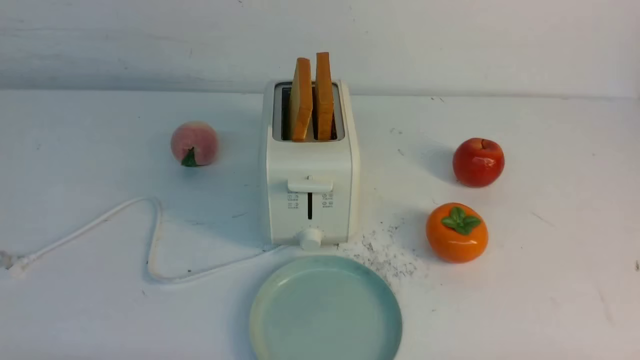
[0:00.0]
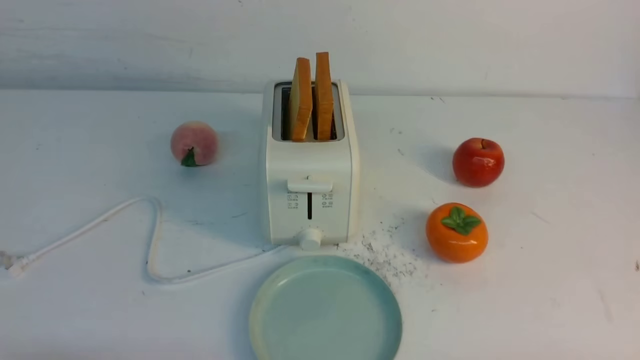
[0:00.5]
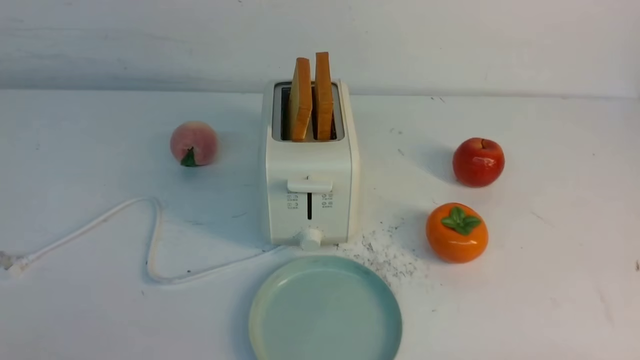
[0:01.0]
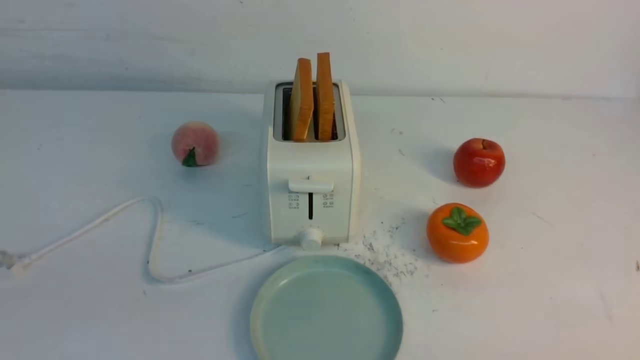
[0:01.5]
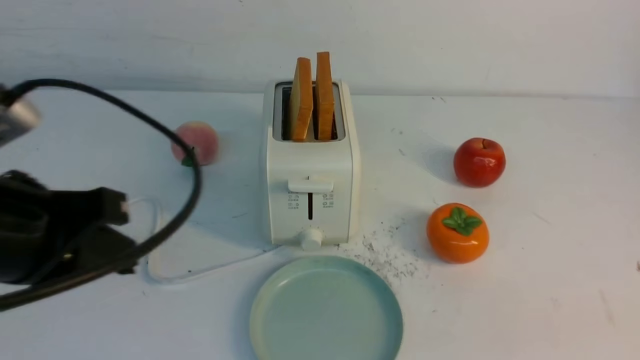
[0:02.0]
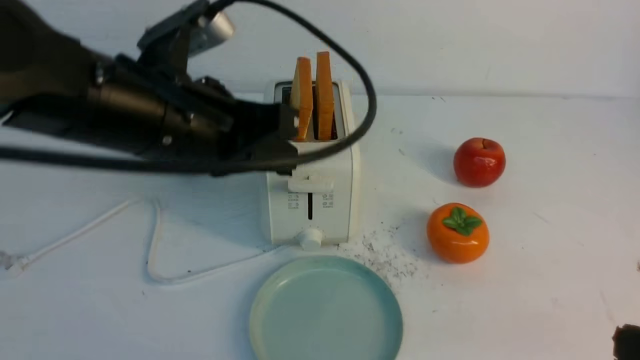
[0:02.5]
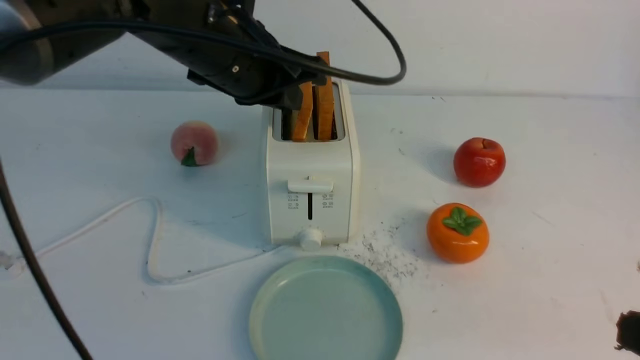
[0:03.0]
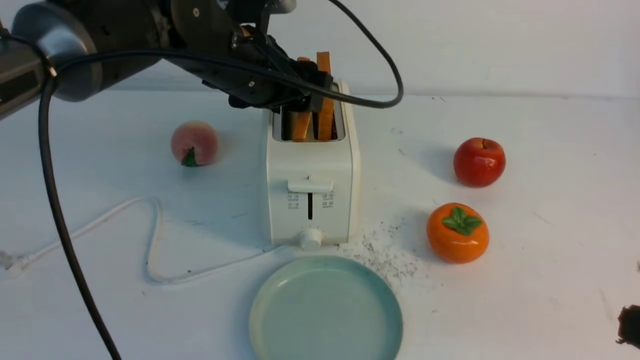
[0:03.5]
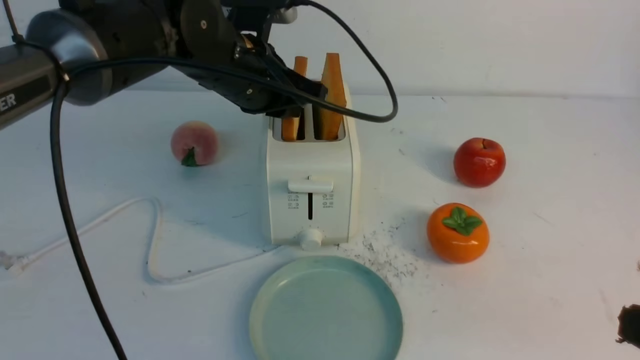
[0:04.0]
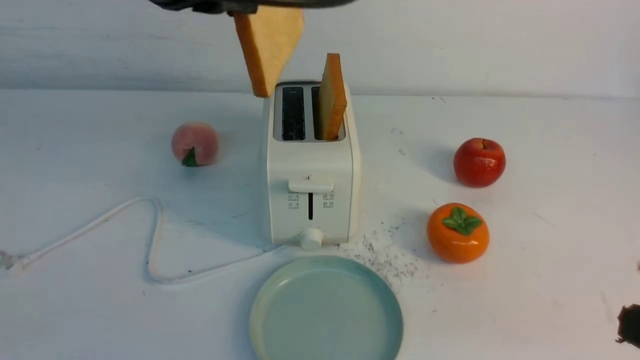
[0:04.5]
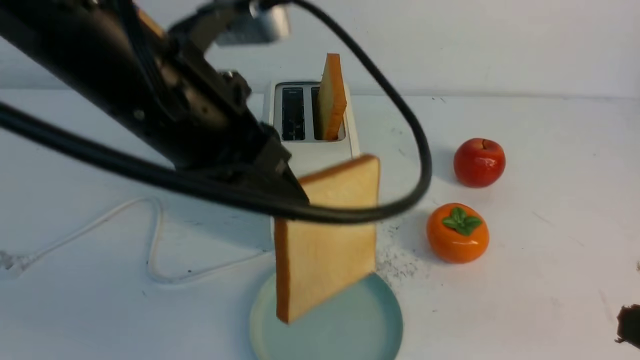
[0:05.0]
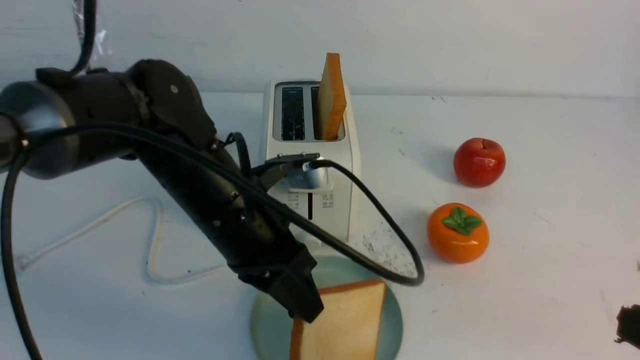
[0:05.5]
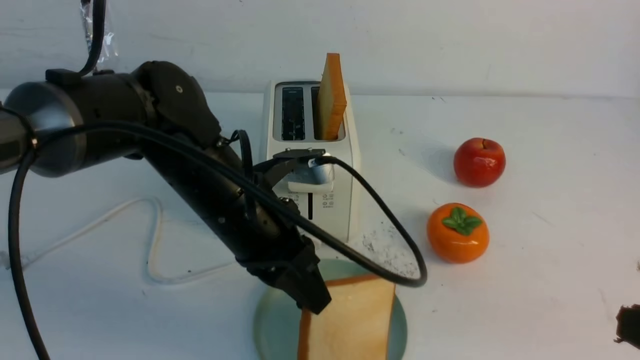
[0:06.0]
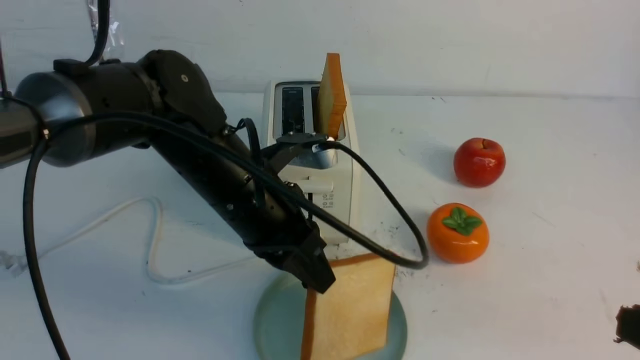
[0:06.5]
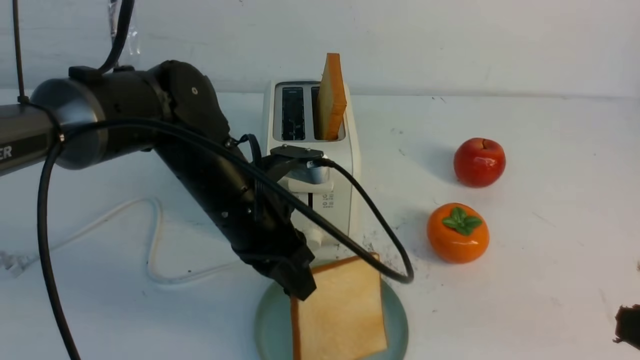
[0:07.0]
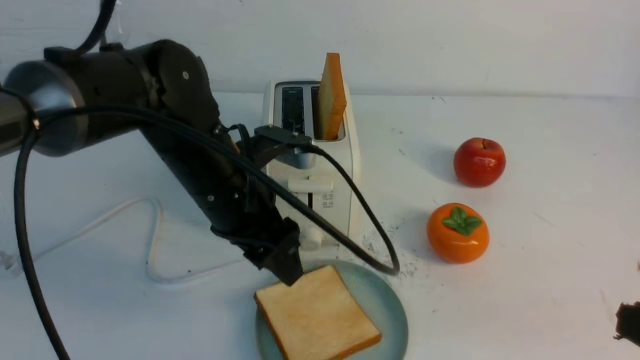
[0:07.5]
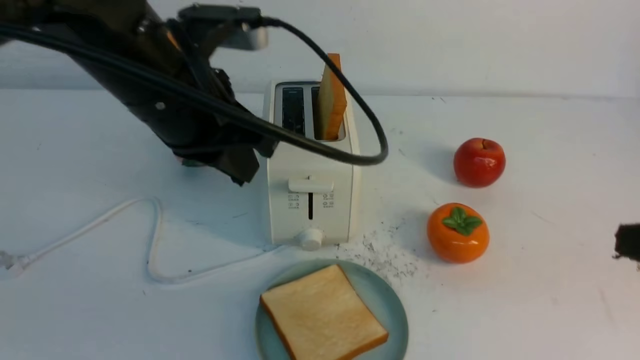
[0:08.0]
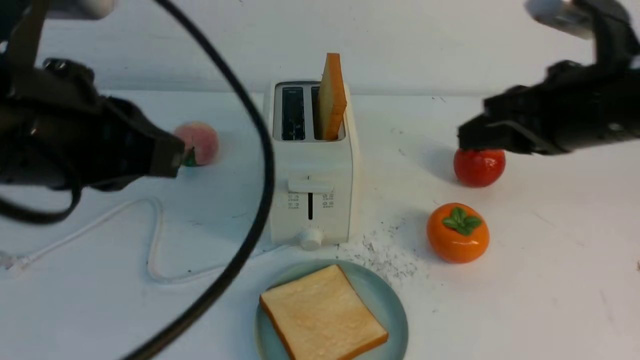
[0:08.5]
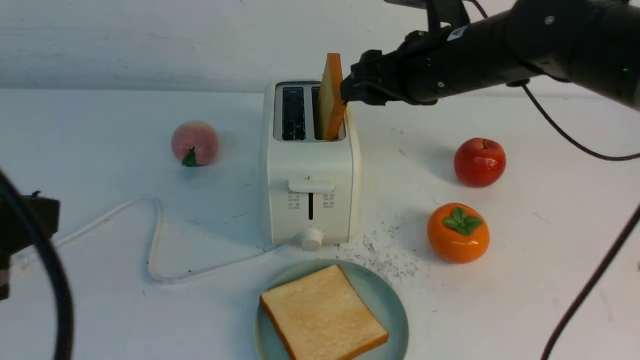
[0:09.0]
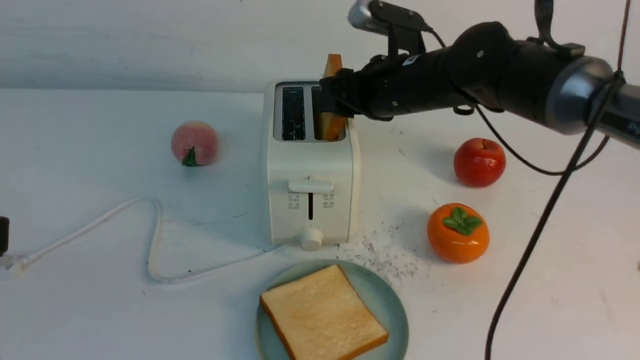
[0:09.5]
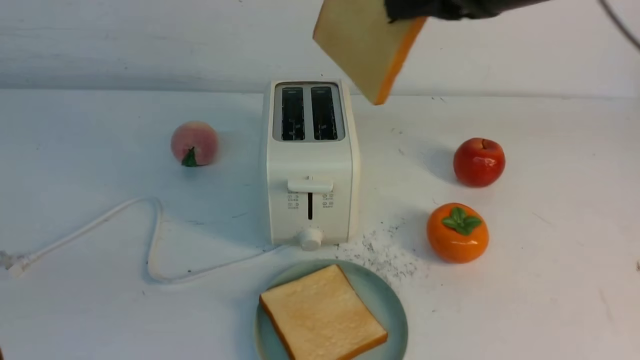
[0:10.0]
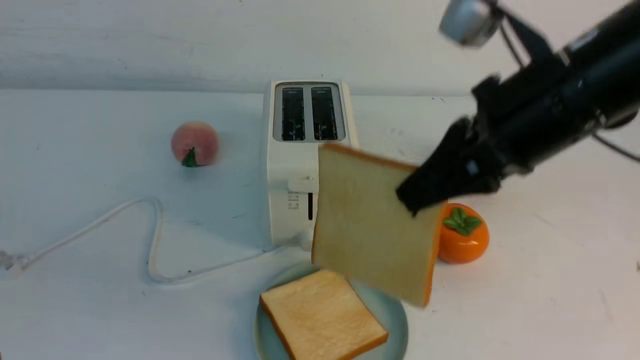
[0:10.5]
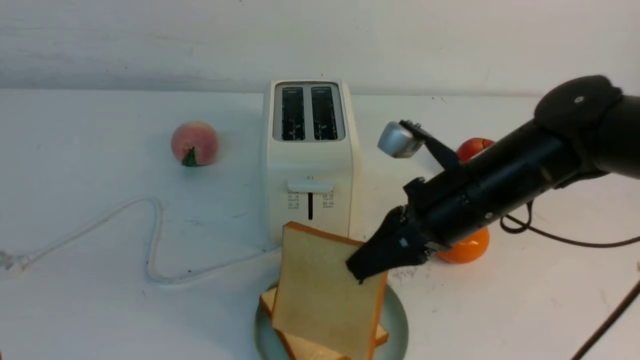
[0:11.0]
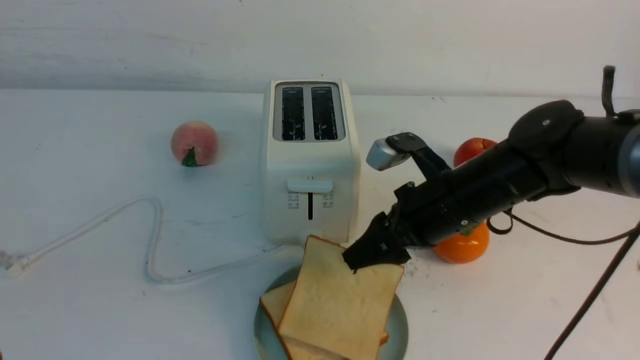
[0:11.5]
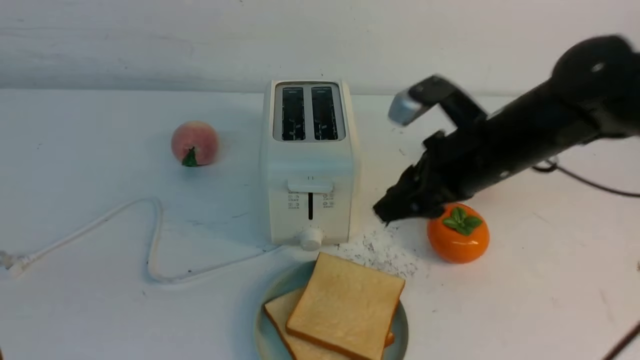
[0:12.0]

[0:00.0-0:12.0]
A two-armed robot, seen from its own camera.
Task of the whole recording: take toasted bread from bread machine on white table place on plate.
Step, 0:00.0 to 0:04.0: use the left arm to take out a slice of bread.
Step, 0:04.5 to 0:07.5: use the left arm to put a slice of bread into the empty plate.
Step, 0:08.0 to 0:09.5: use the right arm to take out a slice of bread.
Step, 0:10.0 to 0:11.5: use the right arm to put a slice of bread into the plate.
0:00.0 to 0:02.0: The left gripper is displaced upward and forward by some 20 cm, and closes its fingers.
0:02.0 to 0:04.0: The left gripper is displaced forward and to the right by some 25 cm, and opens and closes again. The right gripper moves roughly 5 cm.
0:04.0 to 0:06.0: The left gripper moves backward and downward, approximately 15 cm.
0:06.0 to 0:08.0: The left gripper is displaced upward by approximately 10 cm, and opens and closes again. Meanwhile the right gripper is displaced forward by roughly 5 cm.
0:08.0 to 0:10.0: The left gripper is displaced backward and to the left by about 25 cm; the right gripper moves forward, to the left and upward, approximately 25 cm, and opens and closes again.
0:10.0 to 0:12.0: The right gripper travels downward by roughly 10 cm.

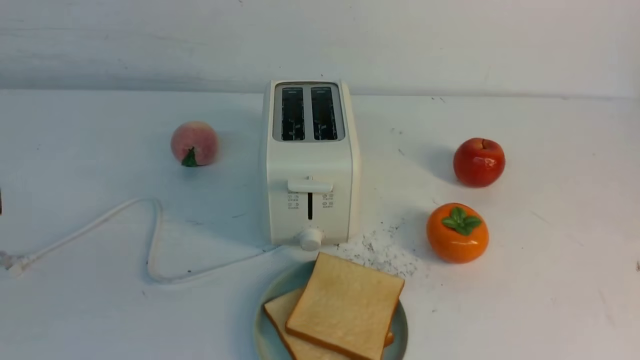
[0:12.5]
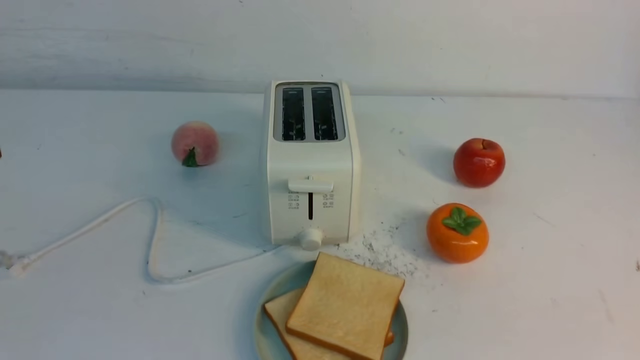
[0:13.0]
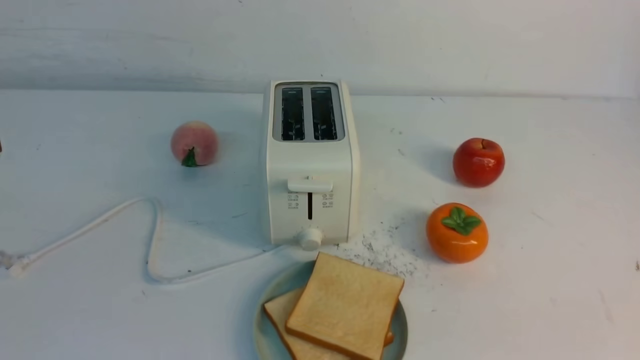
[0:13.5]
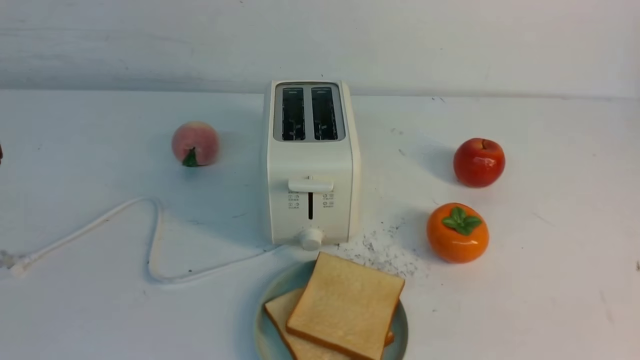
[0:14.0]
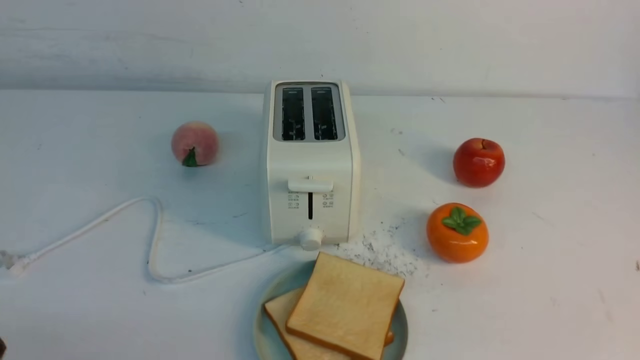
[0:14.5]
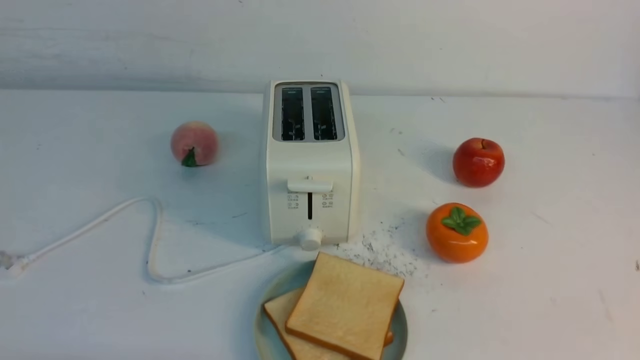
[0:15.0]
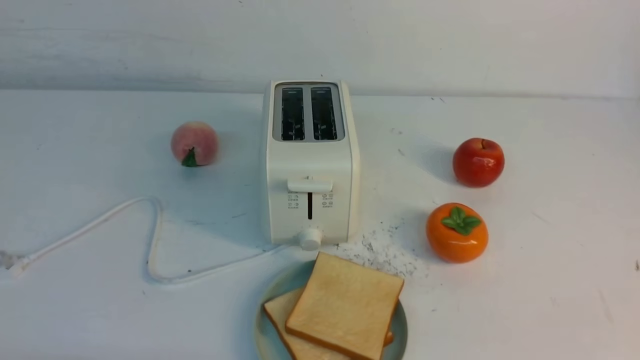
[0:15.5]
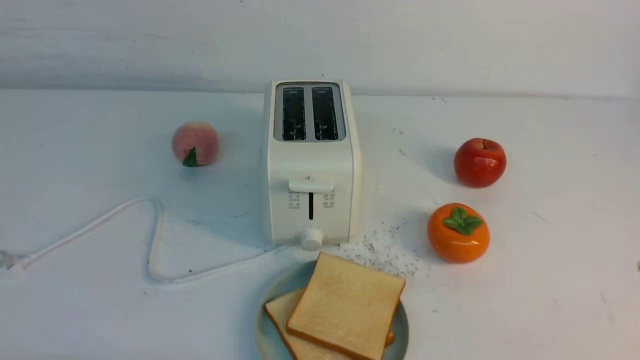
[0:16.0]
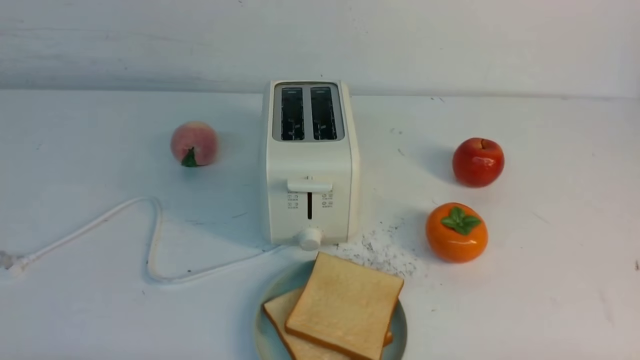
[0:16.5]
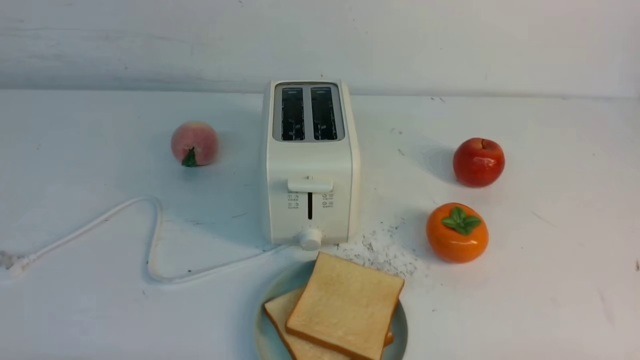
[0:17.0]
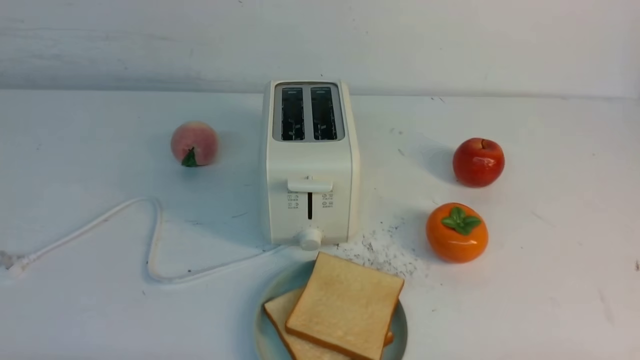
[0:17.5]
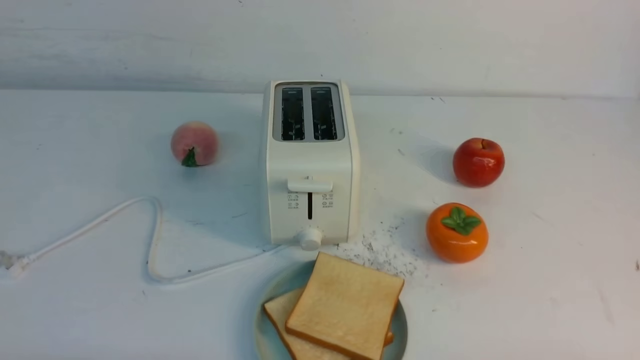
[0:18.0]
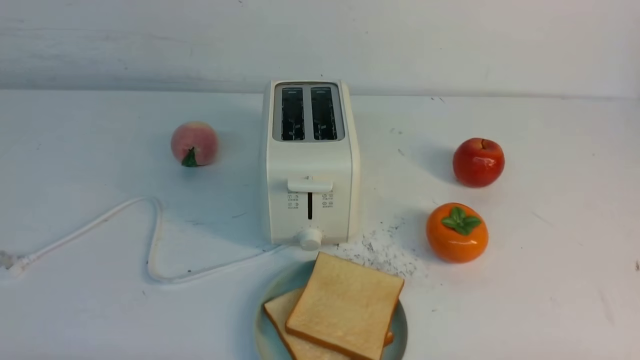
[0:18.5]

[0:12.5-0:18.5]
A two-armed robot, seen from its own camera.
Task of the whole recording: take toasted bread from bread machine on white table place on plate.
0:16.5 to 0:18.5: Both grippers stay about where they are.
